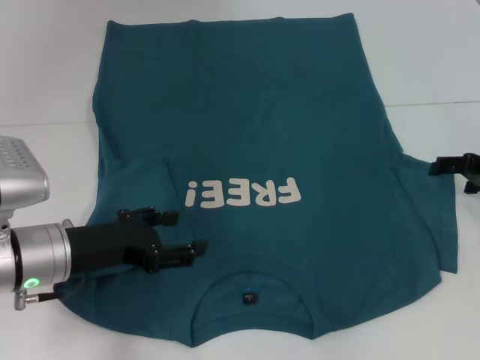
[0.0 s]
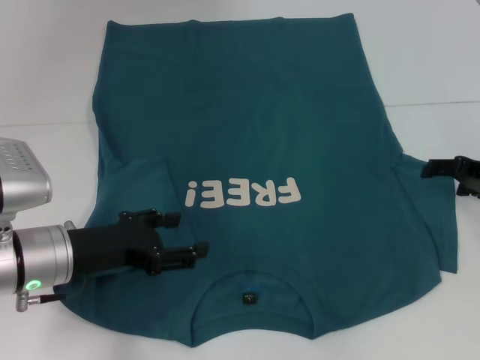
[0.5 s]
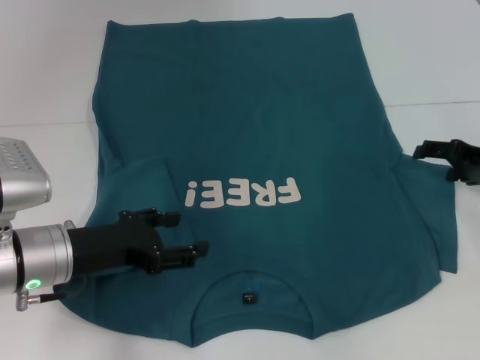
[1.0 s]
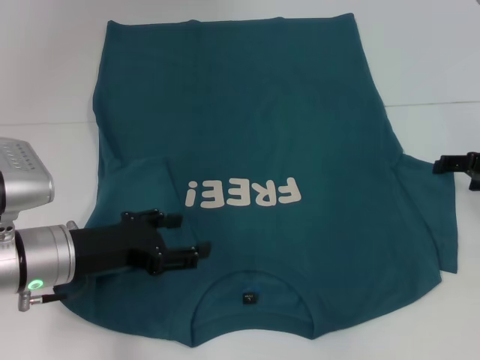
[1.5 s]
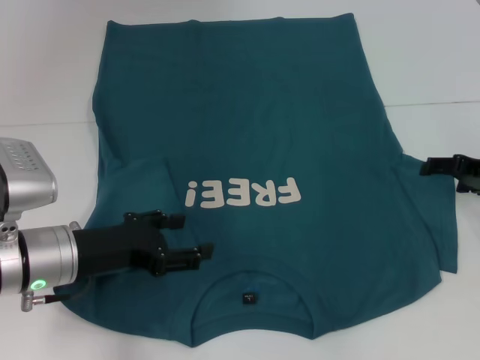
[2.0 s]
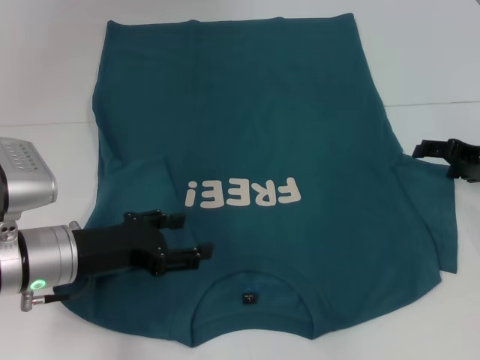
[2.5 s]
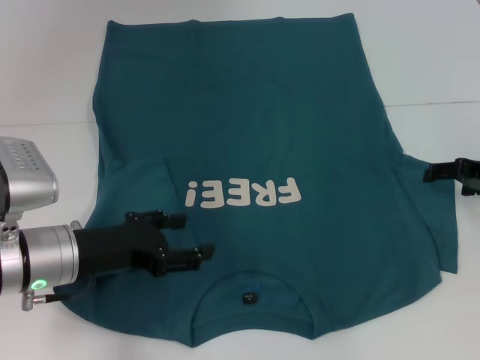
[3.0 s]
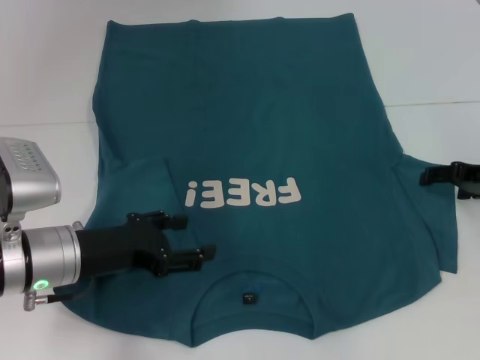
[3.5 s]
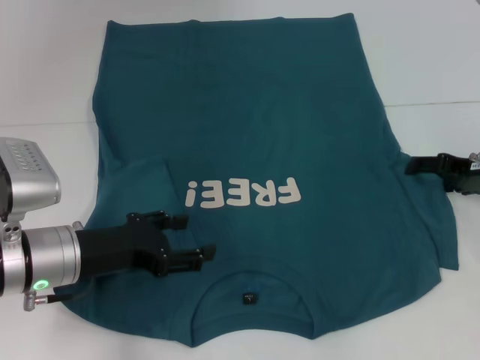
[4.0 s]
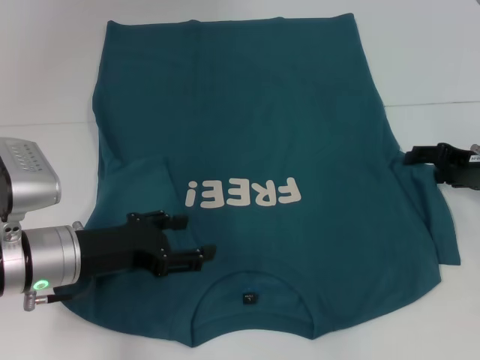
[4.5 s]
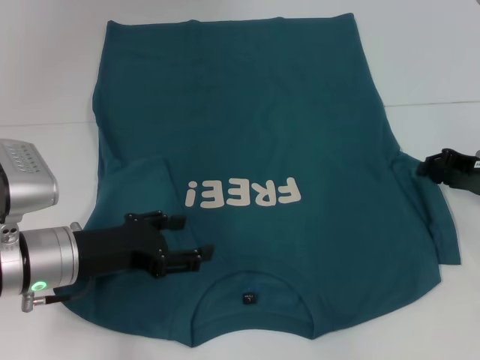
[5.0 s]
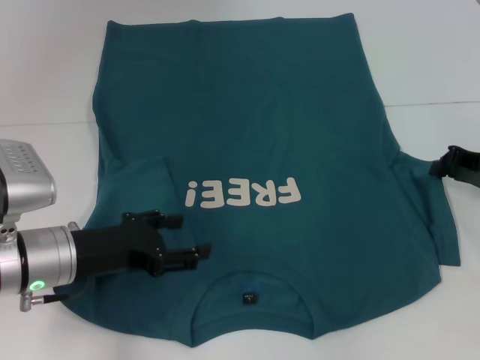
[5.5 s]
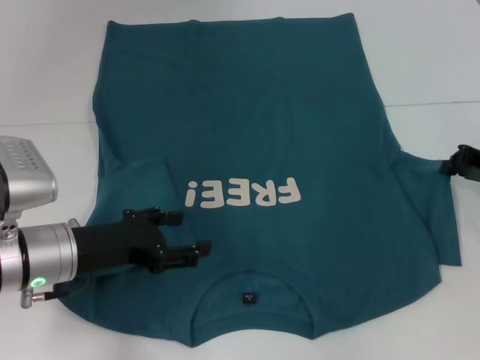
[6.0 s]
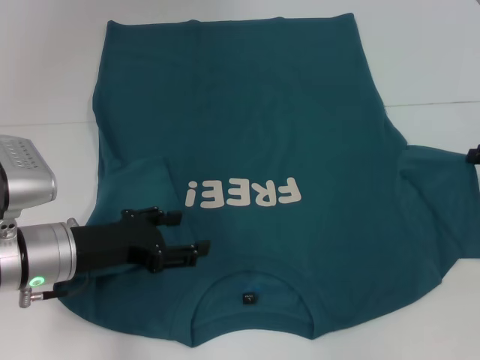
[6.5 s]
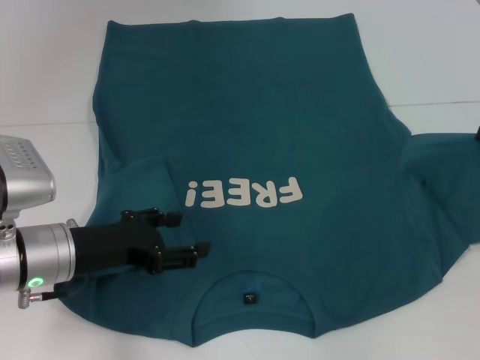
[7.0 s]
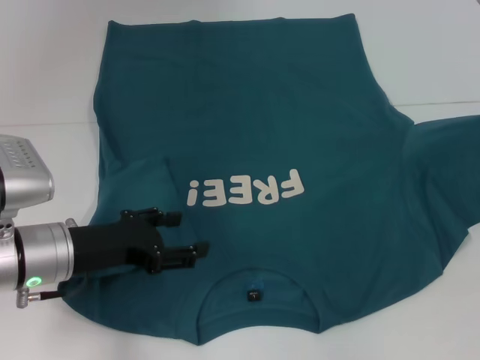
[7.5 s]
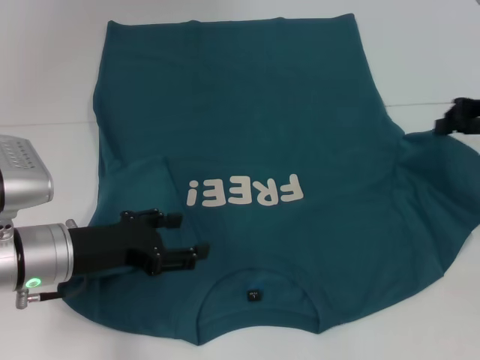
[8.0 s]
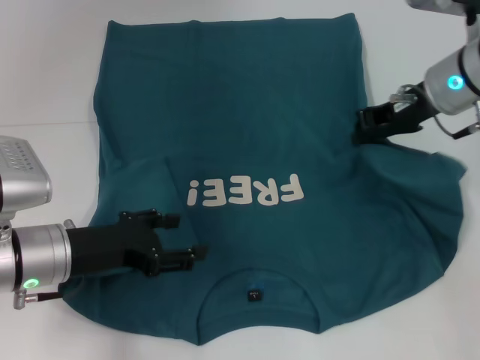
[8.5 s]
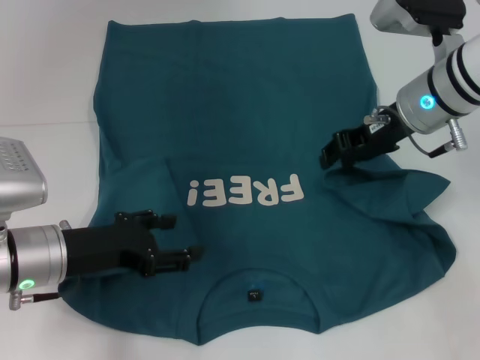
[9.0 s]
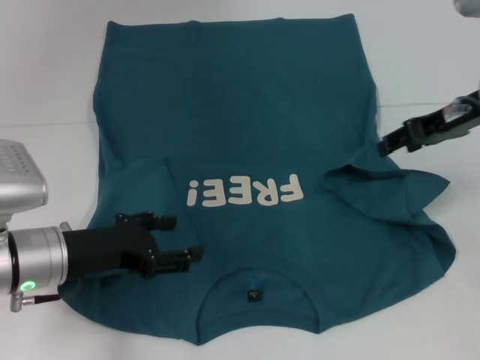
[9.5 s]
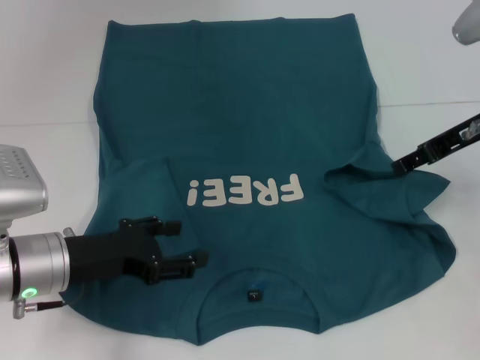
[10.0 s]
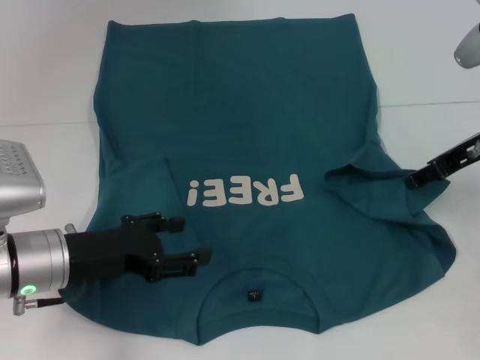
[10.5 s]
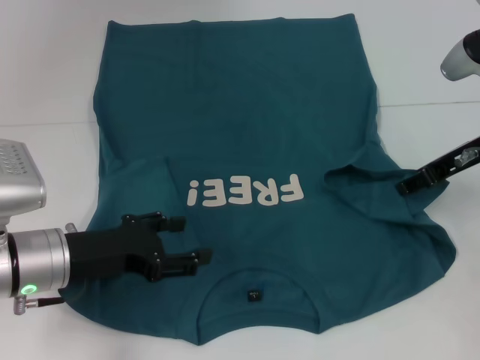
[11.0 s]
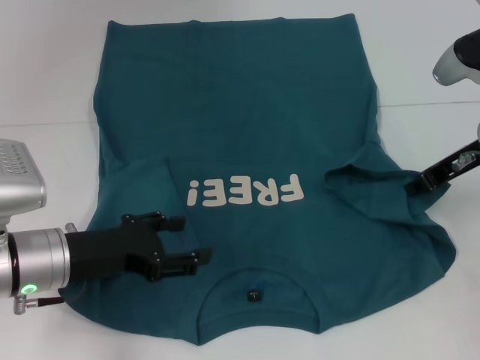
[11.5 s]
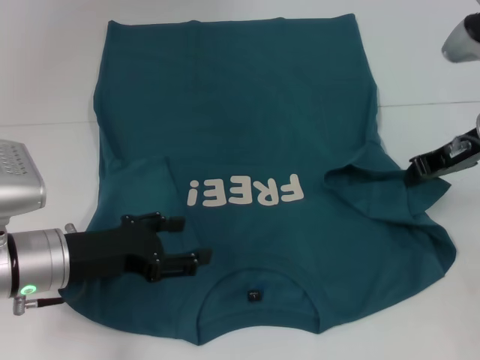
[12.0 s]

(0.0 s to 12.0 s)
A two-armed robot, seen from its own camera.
0.0 s - 4.0 s: The grippers make only small movements.
4.0 s - 6.0 s: The right gripper closes up.
6.0 s - 8.0 s: The right gripper goes approximately 10 cm upward.
8.0 s - 10.0 s: The right gripper heads to the left, covering roughly 5 cm, and opens up.
10.0 s - 12.0 s: The right gripper closes up.

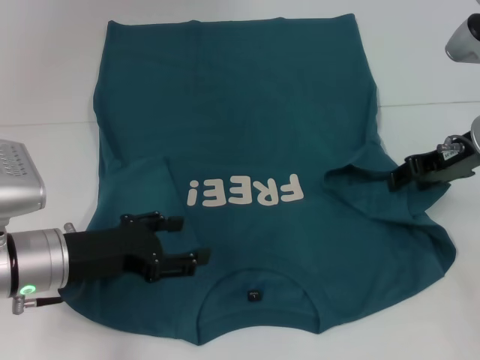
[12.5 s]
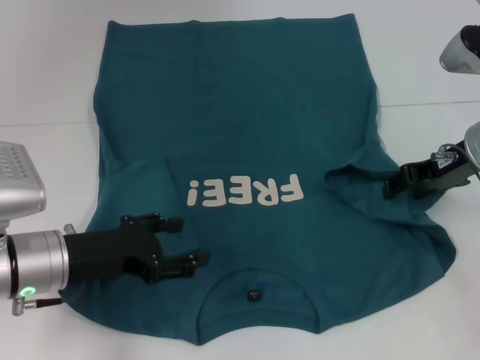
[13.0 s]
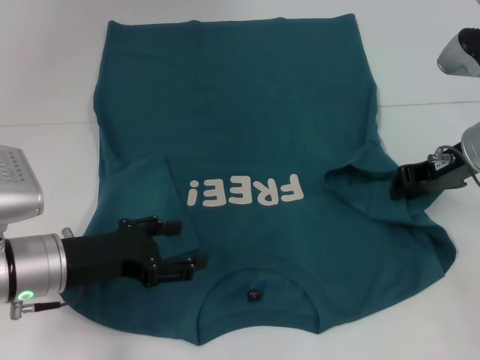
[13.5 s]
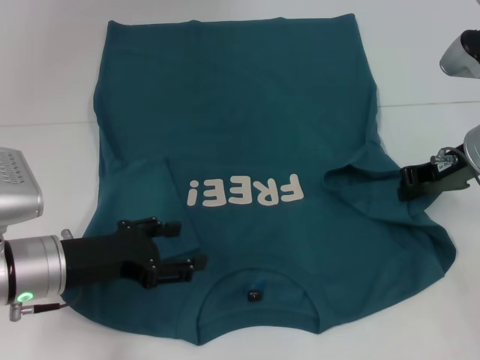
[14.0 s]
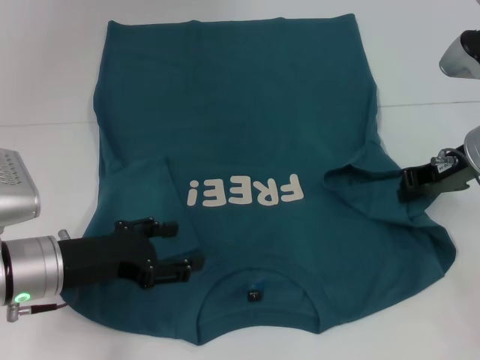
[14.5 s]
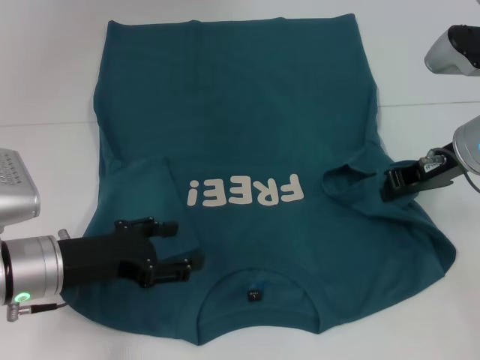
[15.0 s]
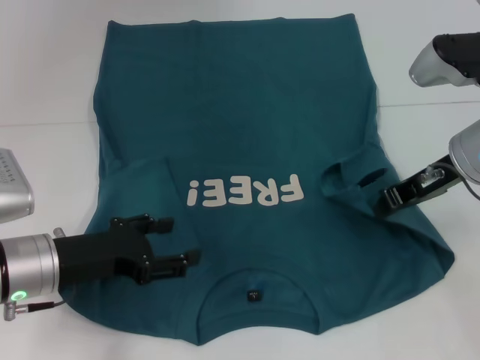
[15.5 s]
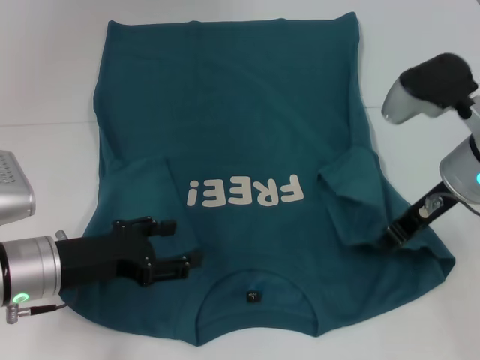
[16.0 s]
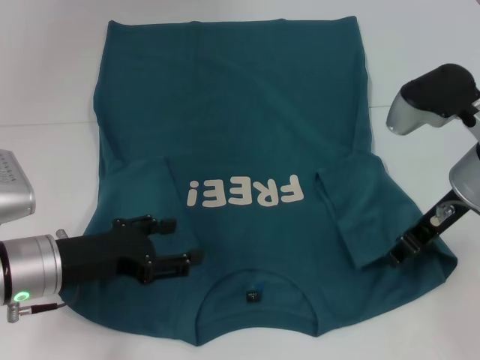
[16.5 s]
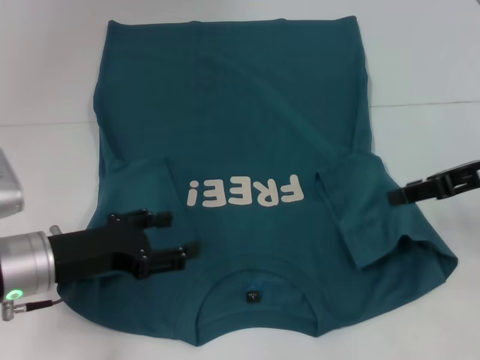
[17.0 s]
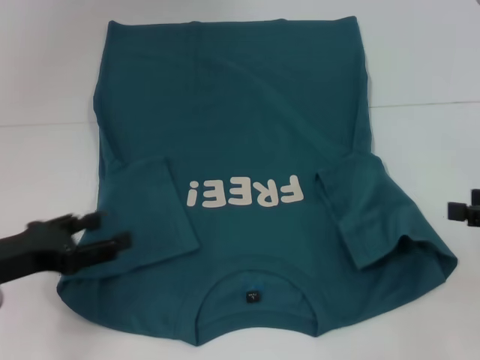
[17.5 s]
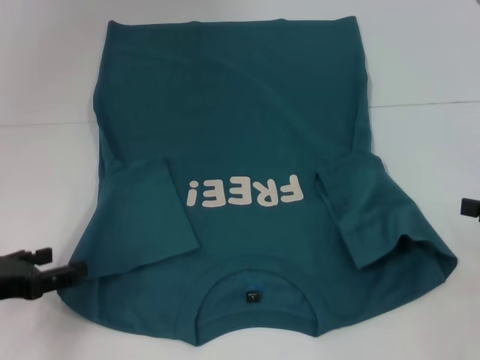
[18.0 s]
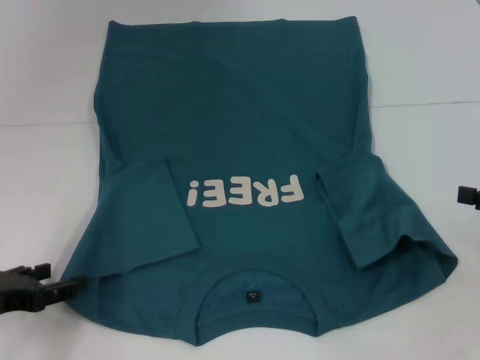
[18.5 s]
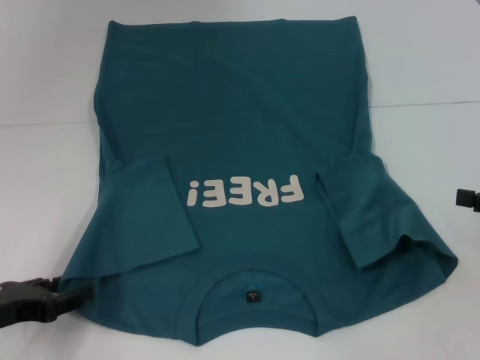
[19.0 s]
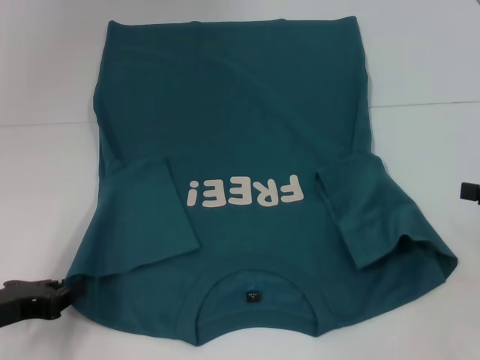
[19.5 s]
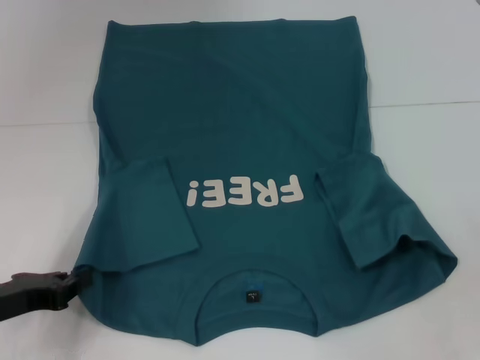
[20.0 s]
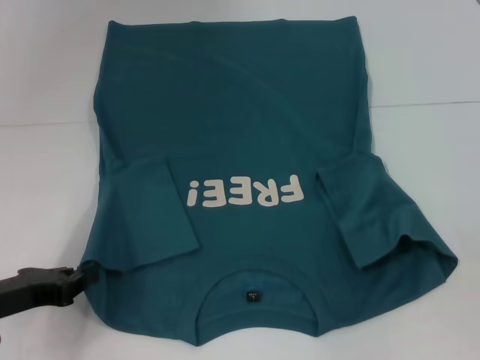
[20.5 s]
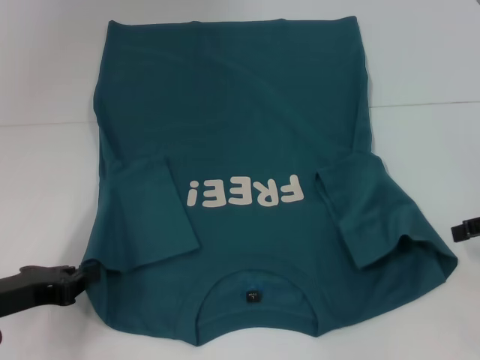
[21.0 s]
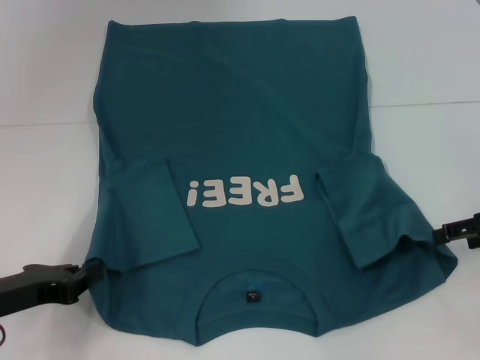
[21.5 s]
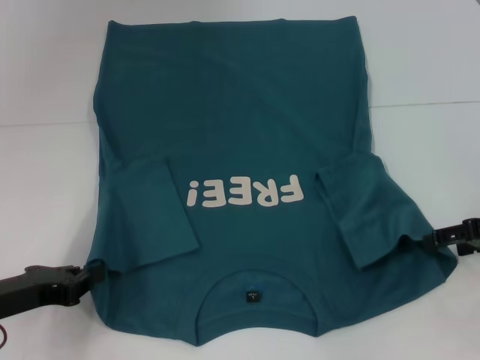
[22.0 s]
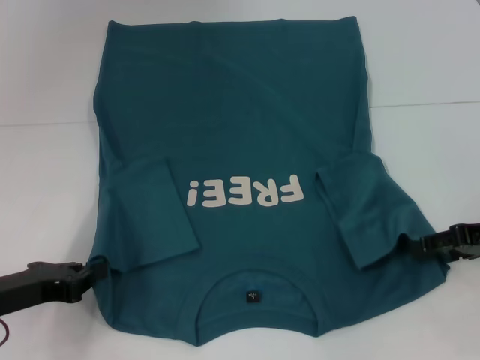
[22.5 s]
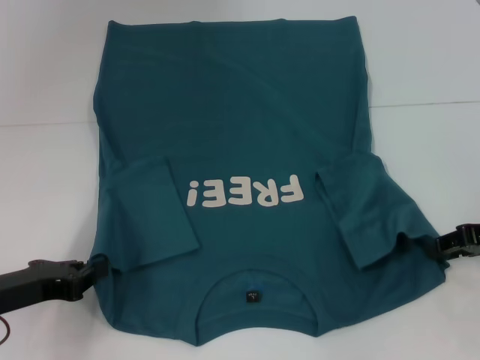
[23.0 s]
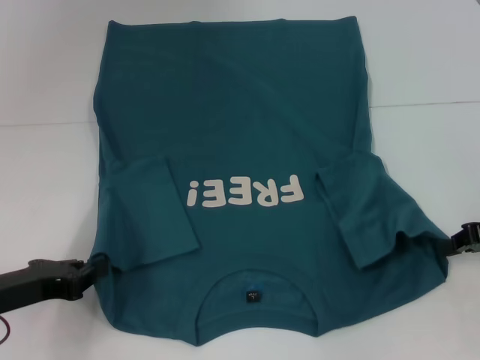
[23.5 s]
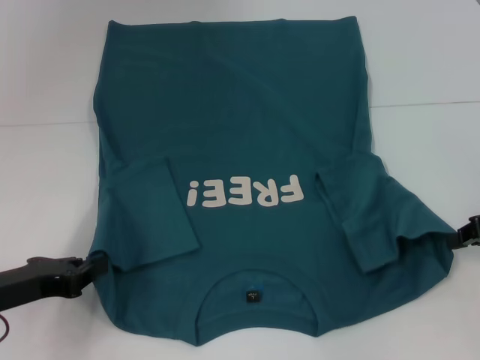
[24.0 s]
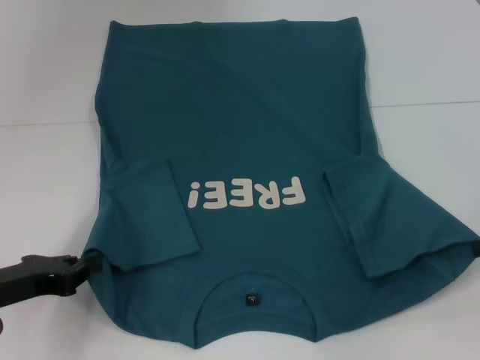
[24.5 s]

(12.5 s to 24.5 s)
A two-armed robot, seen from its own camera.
Step, 12.5 s - 17.0 s: Fold the bottom right sleeve to the right.
Step, 17.5 s - 20.0 s: Grab the bottom left corner with your left hand.
Step, 20.5 s - 23.5 s: Grab the bottom right corner with your right hand.
12.5 s - 14.5 s: The right gripper closes its fingers.
14.5 s - 16.5 s: The right gripper moves roughly 5 cm.
16.5 s - 18.5 s: The right gripper shifts approximately 20 cm to the right and backward, and opens. The left gripper shifts about 10 cm to the left.
18.5 s - 20.5 s: The left gripper closes its fingers.
20.5 s - 22.5 s: The right gripper shifts about 10 cm downward and to the left.
22.5 s - 24.5 s: The right gripper changes place by roughly 5 cm, and closes up.

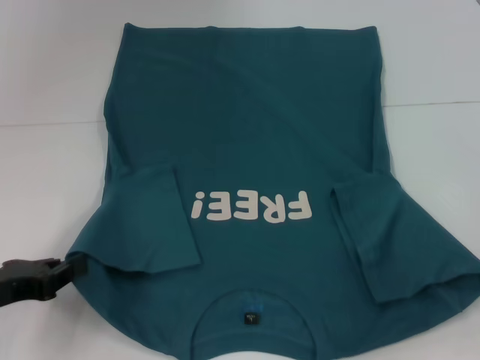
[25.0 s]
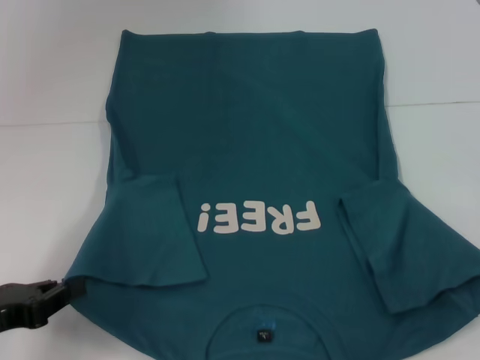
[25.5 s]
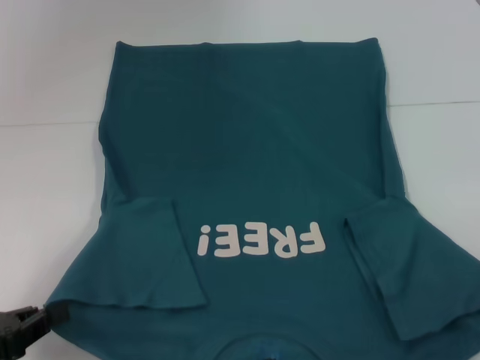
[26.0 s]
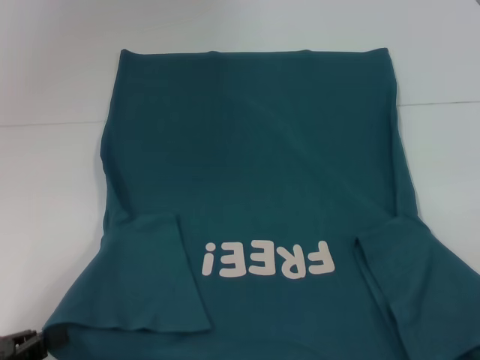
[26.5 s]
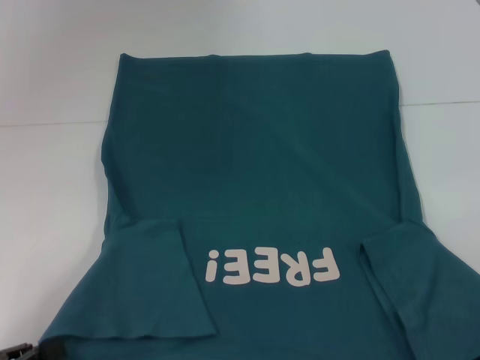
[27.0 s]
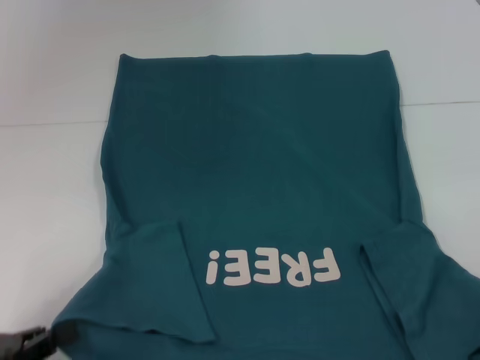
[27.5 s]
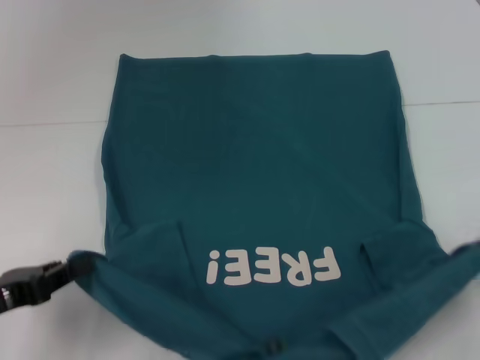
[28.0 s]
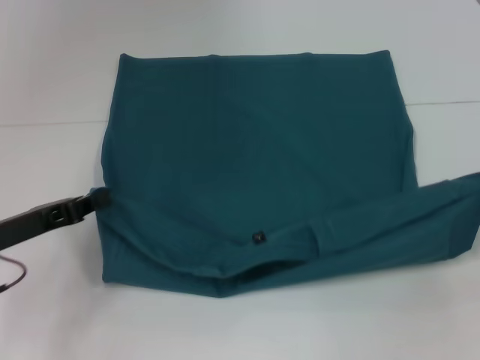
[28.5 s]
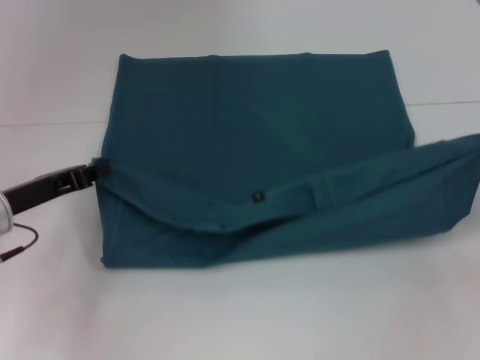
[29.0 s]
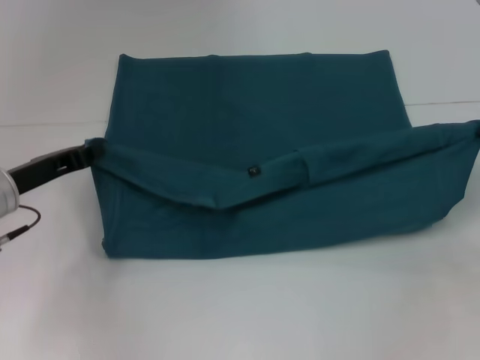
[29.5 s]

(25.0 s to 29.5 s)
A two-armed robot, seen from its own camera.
25.0 s - 27.0 s: The left gripper moves backward, approximately 10 cm, while the right gripper travels backward and to the right by some 10 cm.
27.0 s - 29.5 s: The two grippers go about 20 cm forward.
